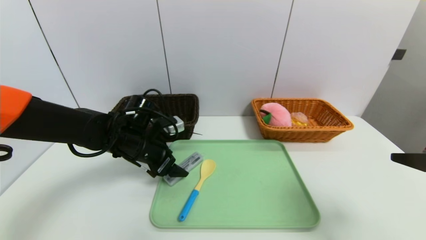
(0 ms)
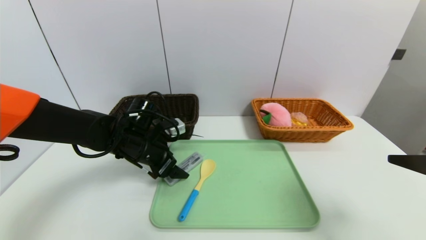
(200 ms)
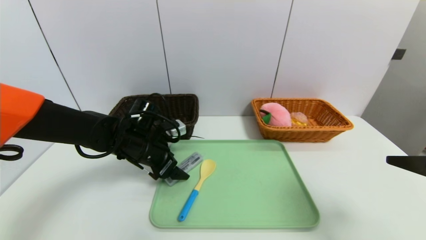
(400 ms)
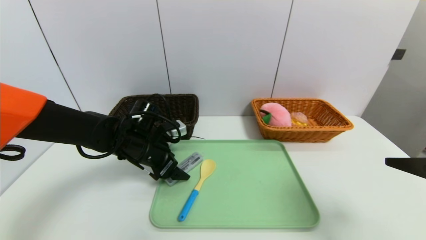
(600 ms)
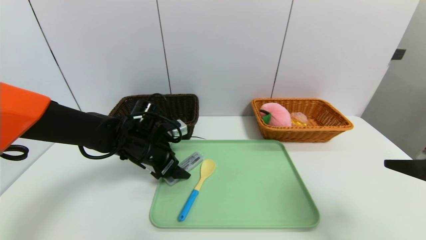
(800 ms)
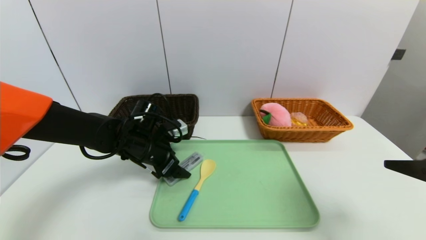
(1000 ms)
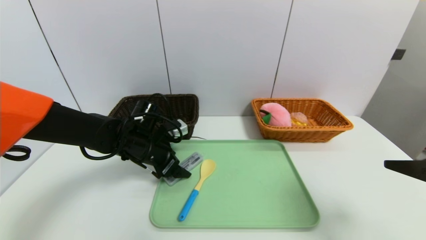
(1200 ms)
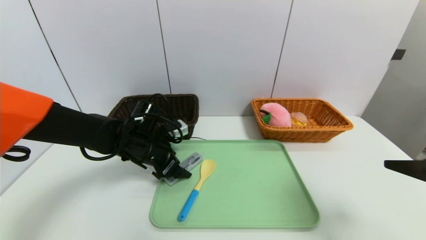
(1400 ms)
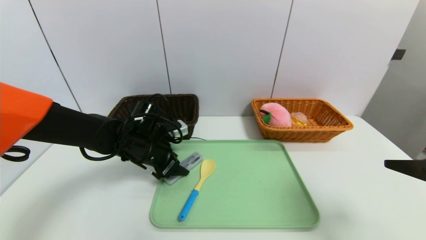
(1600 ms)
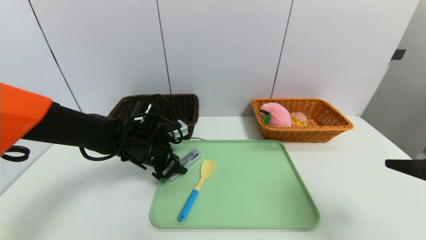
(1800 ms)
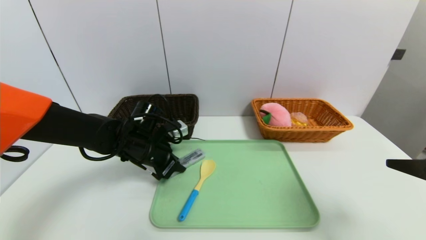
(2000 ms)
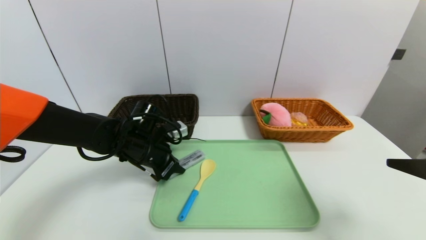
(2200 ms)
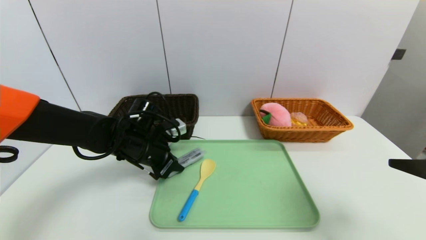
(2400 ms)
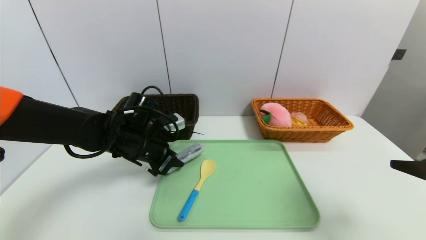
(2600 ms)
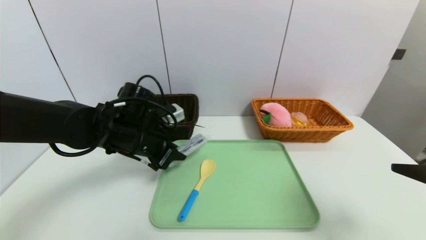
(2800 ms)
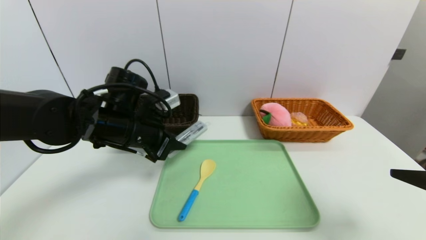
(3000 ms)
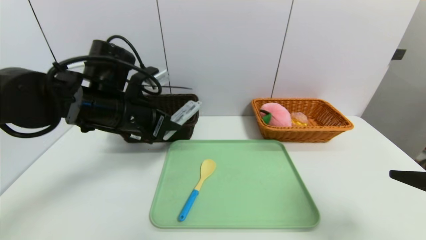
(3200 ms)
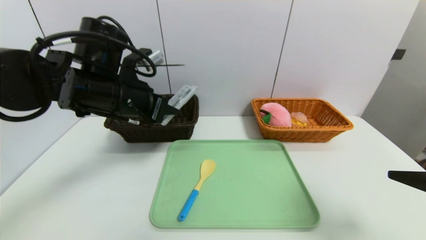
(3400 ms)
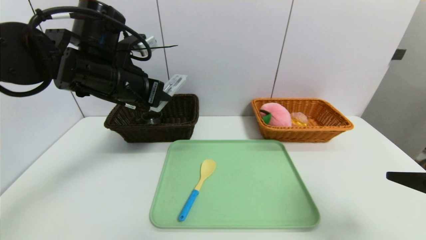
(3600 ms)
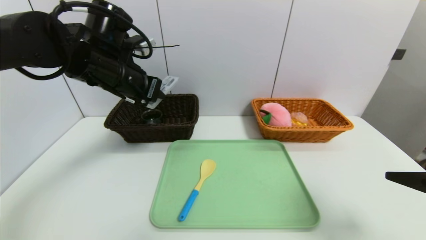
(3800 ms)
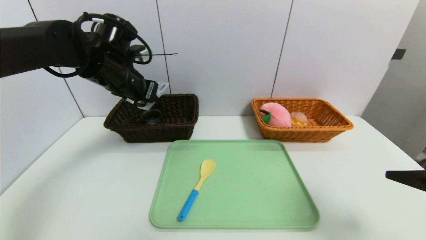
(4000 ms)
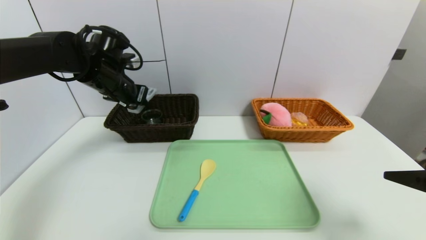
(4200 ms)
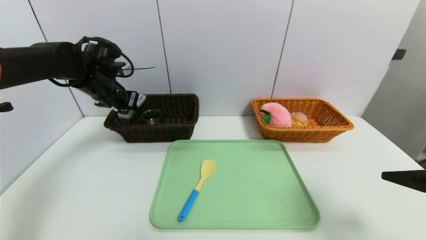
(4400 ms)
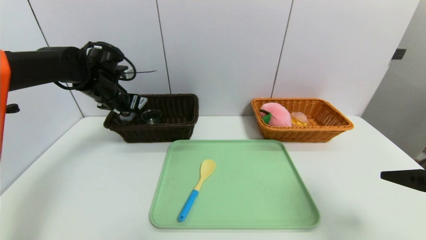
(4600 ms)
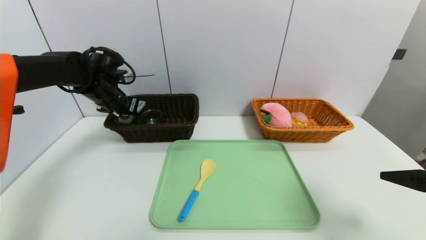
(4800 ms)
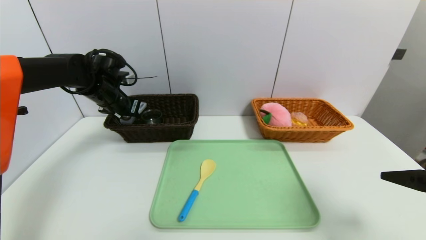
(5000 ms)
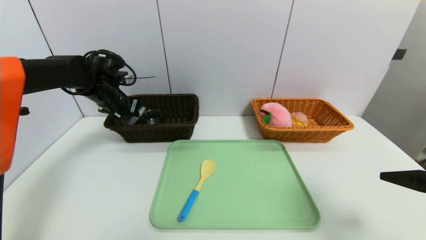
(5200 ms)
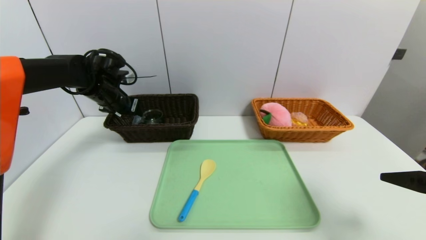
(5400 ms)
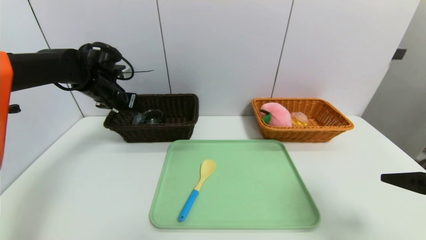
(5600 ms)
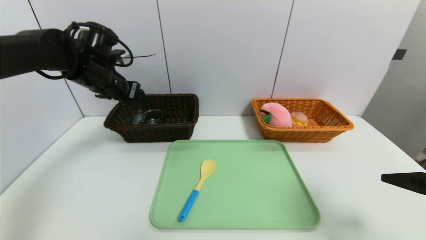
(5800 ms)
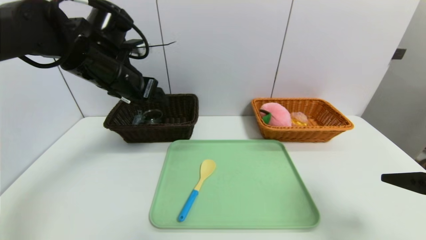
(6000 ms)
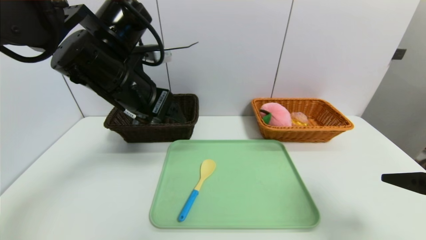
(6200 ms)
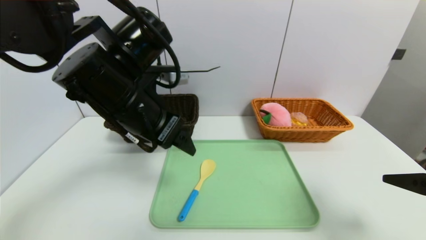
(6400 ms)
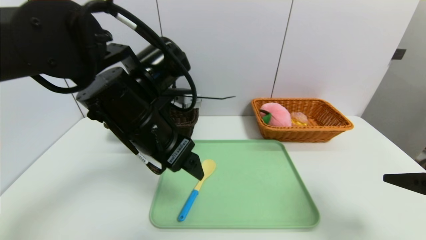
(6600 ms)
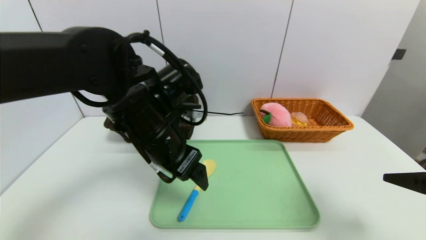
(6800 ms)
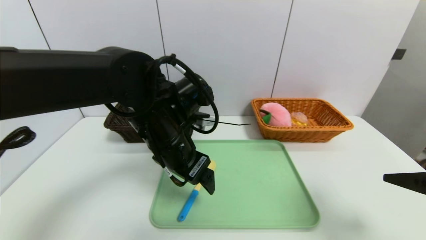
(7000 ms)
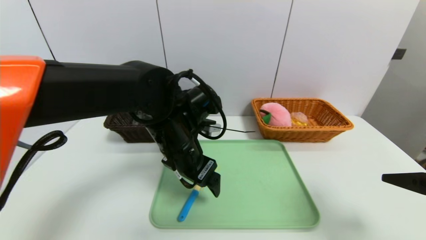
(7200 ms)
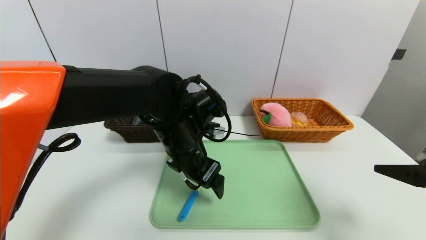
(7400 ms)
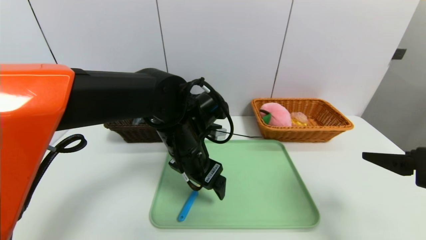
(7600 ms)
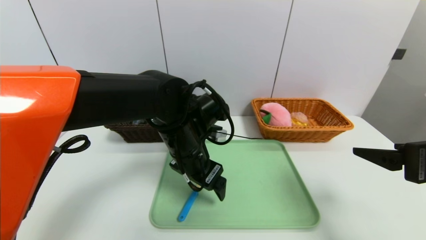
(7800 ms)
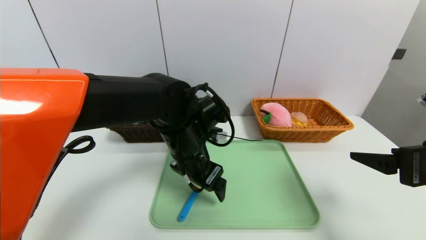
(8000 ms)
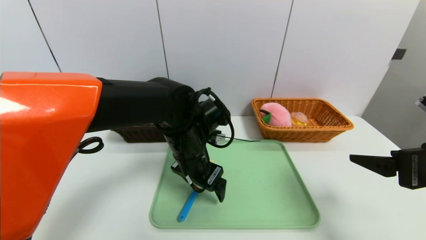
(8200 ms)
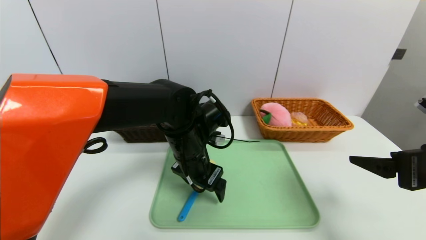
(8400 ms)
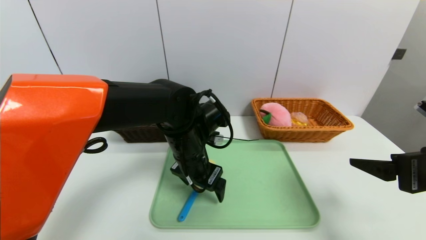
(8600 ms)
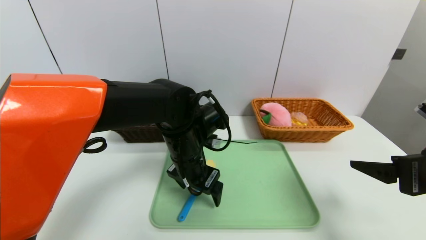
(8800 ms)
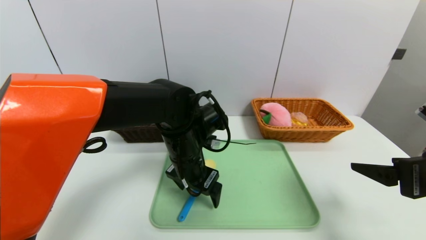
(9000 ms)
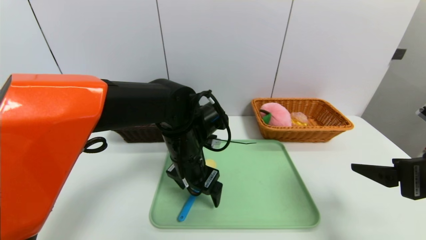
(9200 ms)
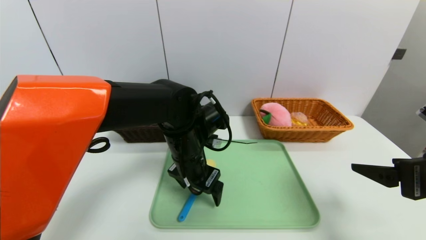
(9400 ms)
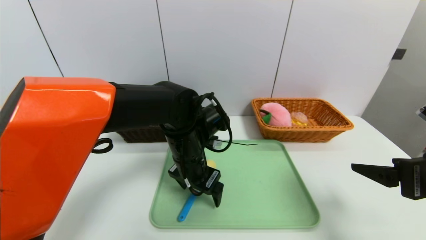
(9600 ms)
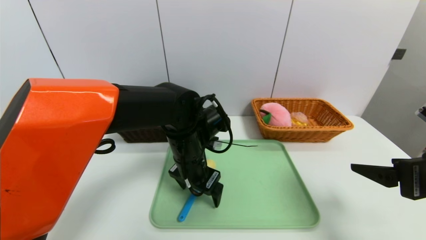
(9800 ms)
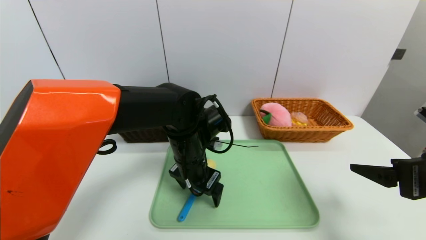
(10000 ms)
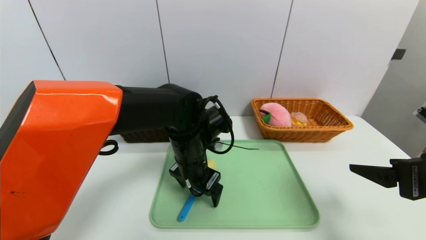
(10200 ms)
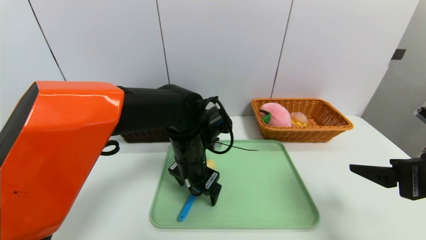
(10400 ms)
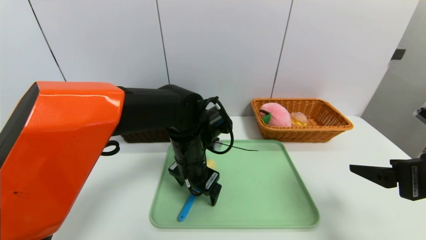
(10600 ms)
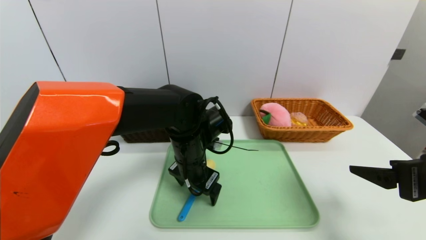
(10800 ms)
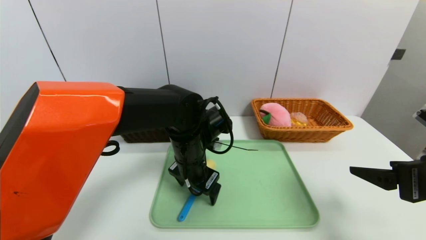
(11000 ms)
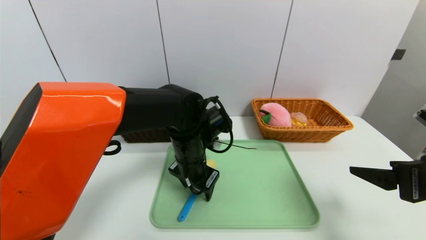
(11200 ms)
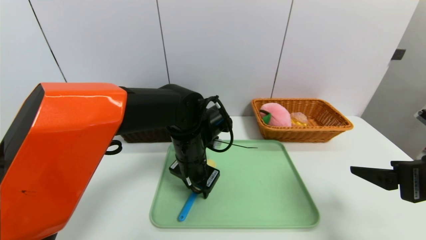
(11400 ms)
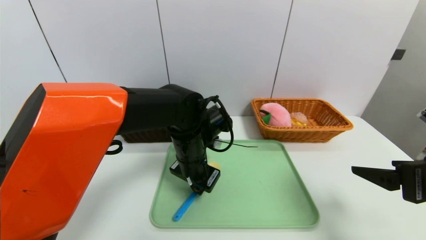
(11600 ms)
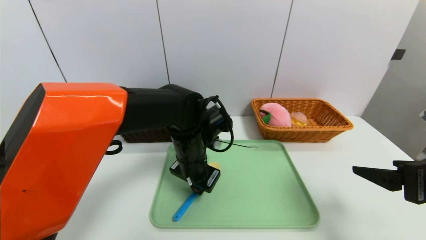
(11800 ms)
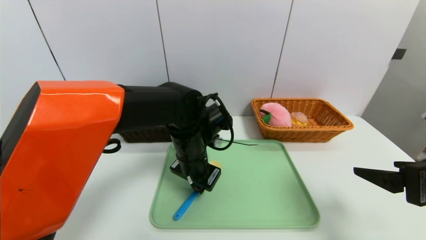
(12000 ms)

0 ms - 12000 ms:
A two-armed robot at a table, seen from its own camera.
Task of the whole recording: place the food in the right basket with the right gripper, and place the non food items in the left basket with the left gripper.
Step, 0 ms - 5600 ms: Grasp the compass and put it in the left basket.
0 ms - 1600 ms: The grippers stay close to where they were, moving slightly.
1600 ms - 3000 ms: The left gripper goes approximately 10 cm upward, and closes.
3000 ms - 4400 ms: The left gripper shifts some 15 cm forward and to the left.
4400 ms - 6000 ms: The left gripper goes approximately 15 cm backward, to the right and upward, and opens its fingers.
6000 ms - 7600 ms: The left gripper shifts roughly 15 cm to the right and downward.
7600 ms - 10400 ms: The grippers move only a little.
10400 ms - 12000 ms: The left gripper closes.

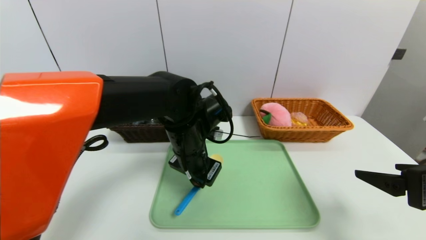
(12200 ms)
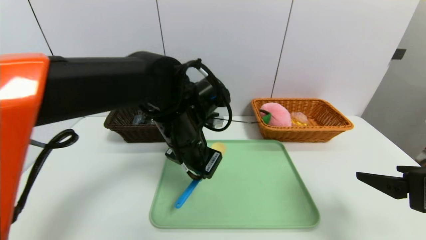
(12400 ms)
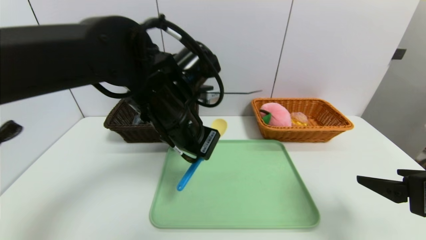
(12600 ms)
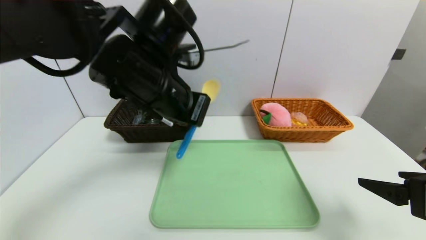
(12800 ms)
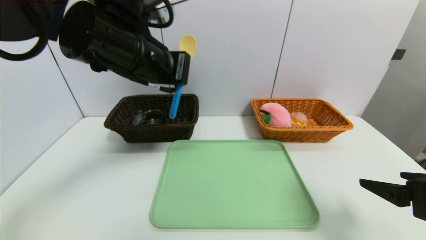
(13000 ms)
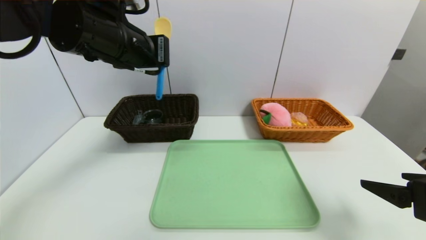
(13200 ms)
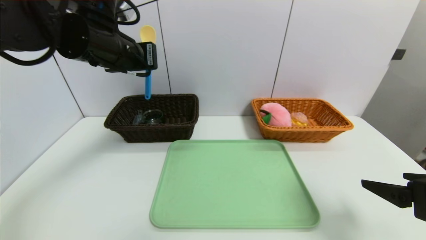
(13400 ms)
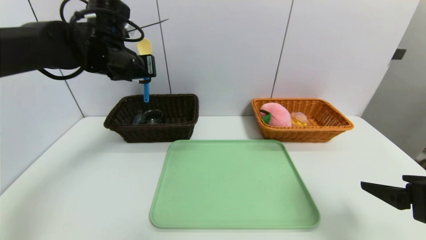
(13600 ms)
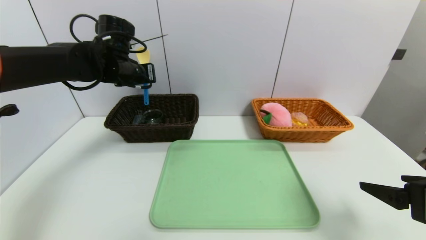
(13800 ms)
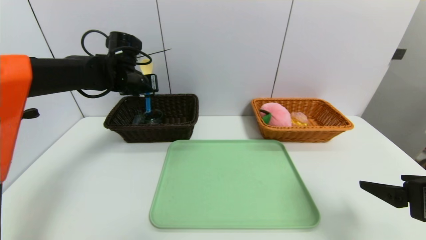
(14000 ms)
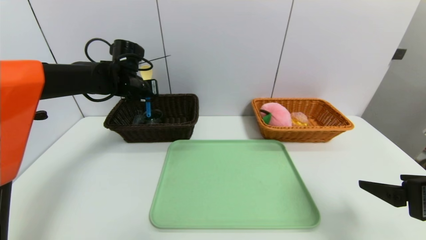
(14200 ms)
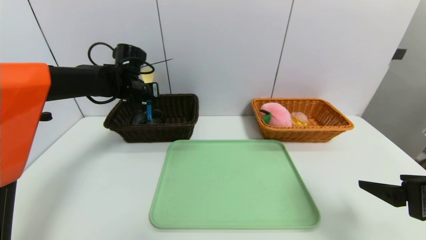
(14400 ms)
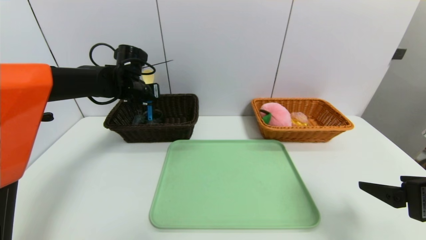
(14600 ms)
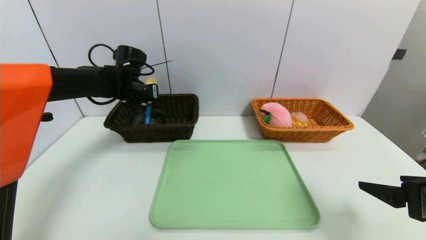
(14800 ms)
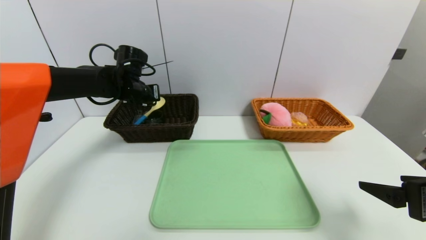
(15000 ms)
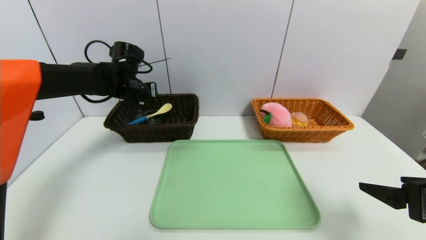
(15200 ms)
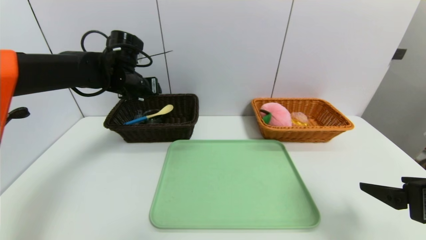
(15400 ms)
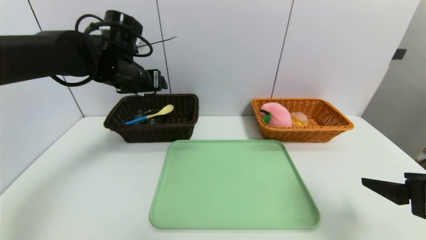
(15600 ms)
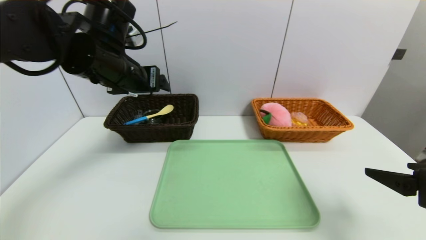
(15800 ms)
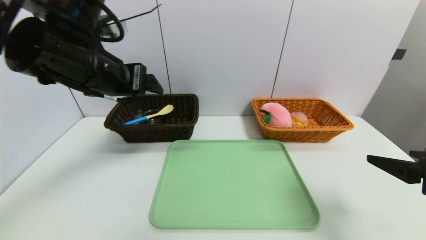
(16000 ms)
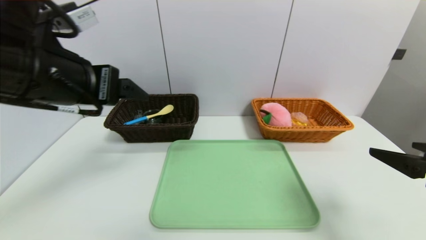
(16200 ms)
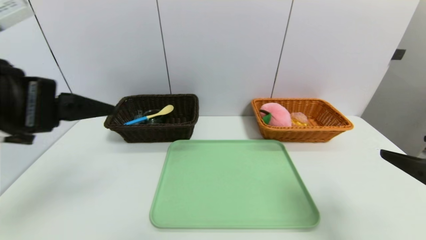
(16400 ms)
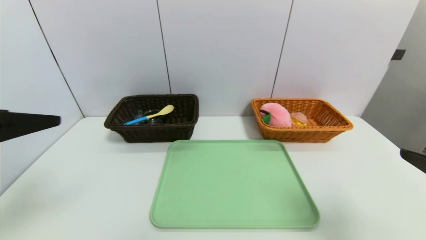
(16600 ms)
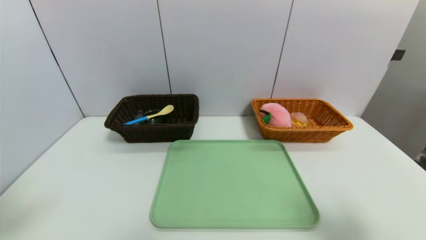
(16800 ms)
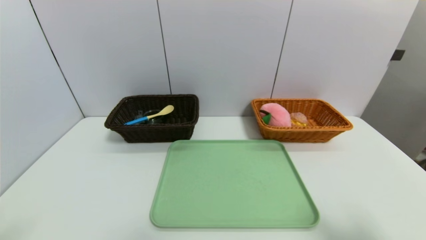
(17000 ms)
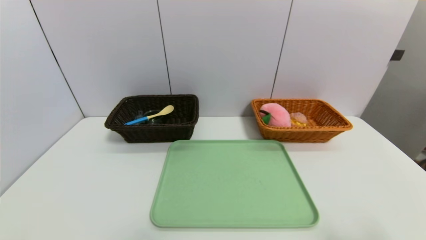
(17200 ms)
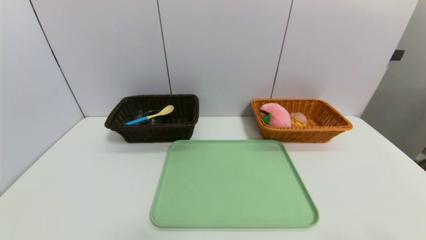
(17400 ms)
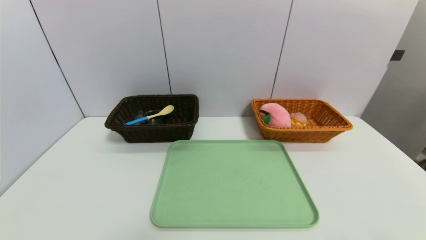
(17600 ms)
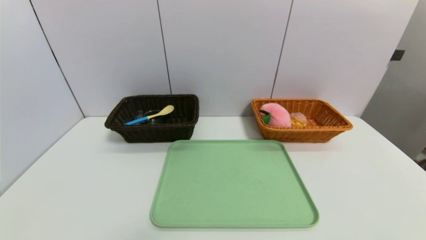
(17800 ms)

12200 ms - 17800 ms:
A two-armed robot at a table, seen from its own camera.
Task of the whole recording: place the food in the right basket with the right gripper, and place the non food items in the left basket with the left gripper.
Step, 12200 ms - 15600 ms: Grasp the spoon and put it in the left basket.
12200 ms - 13600 ms: The left gripper shifts approximately 20 cm to the left, upward and forward.
13600 ms - 15000 ms: The left gripper shifts approximately 10 cm downward and forward, and opens its fingers.
15000 ms - 16400 ms: The left gripper shifts some 30 cm backward, and opens its fingers, while the right gripper shifts by approximately 5 cm.
16400 ms - 17800 ms: The right gripper moves backward and downward, roughly 15 cm. Meanwhile the left gripper moves backward and downward, about 25 cm.
